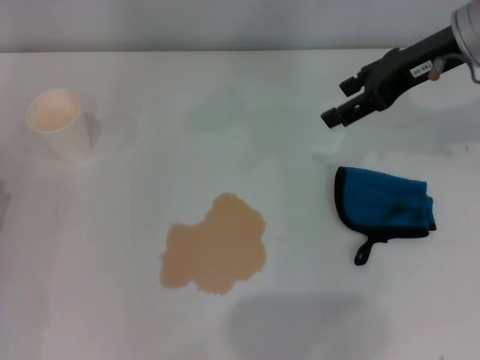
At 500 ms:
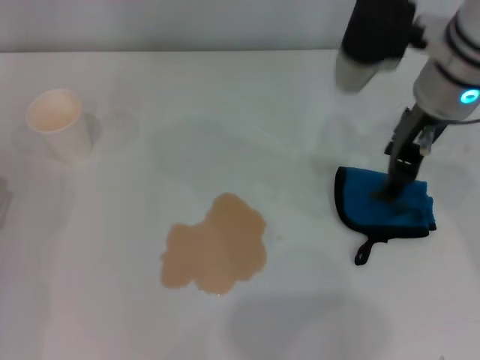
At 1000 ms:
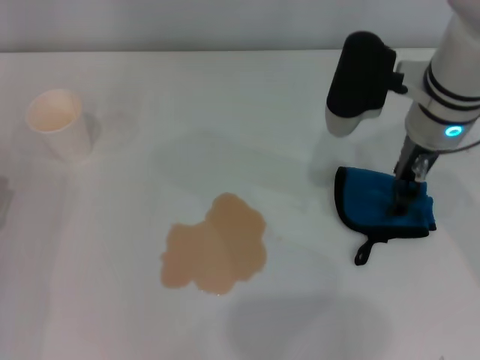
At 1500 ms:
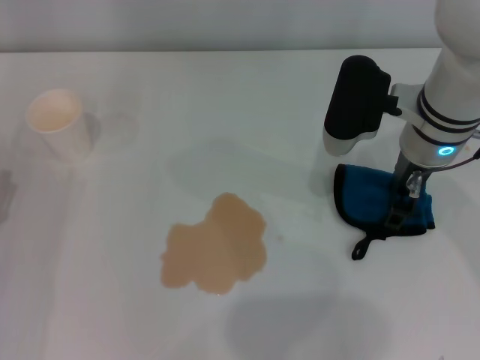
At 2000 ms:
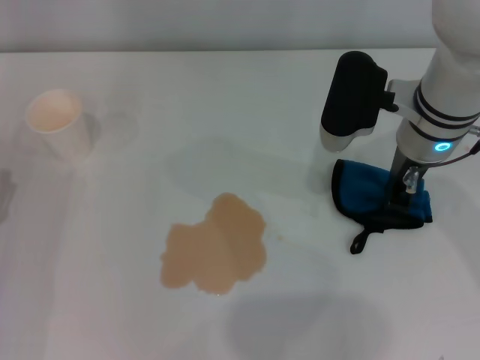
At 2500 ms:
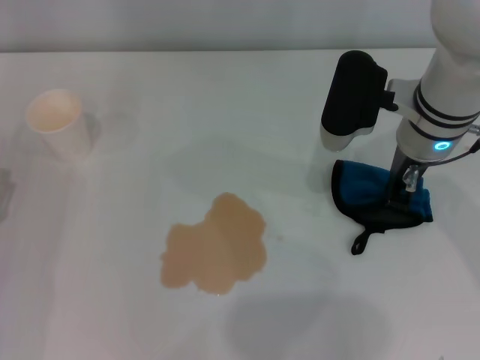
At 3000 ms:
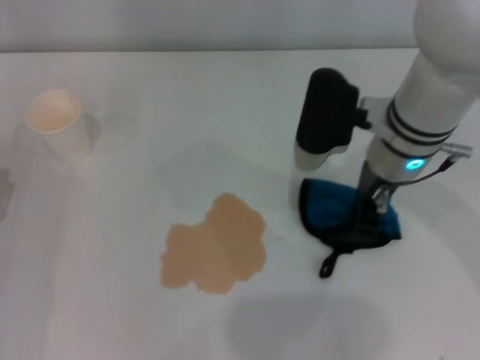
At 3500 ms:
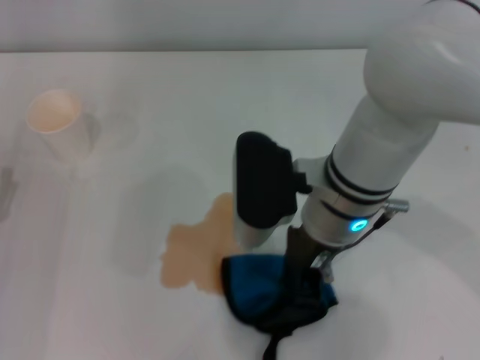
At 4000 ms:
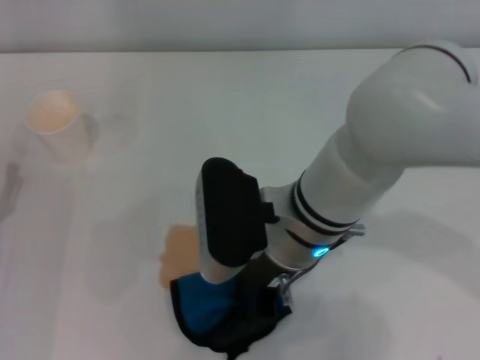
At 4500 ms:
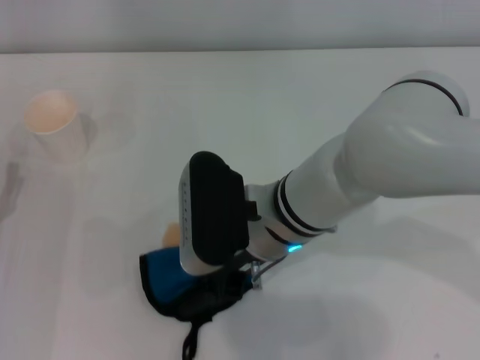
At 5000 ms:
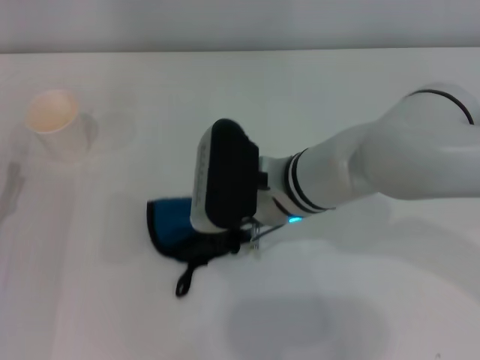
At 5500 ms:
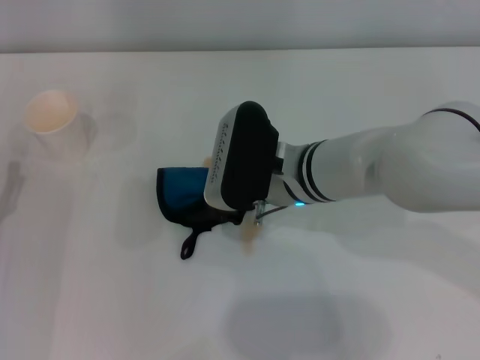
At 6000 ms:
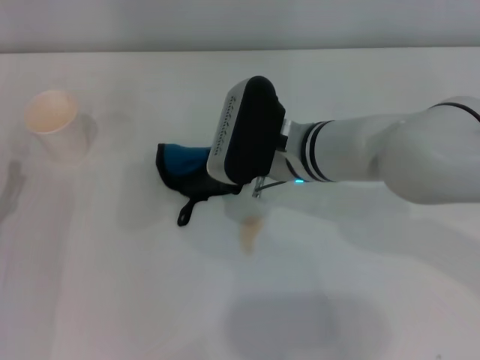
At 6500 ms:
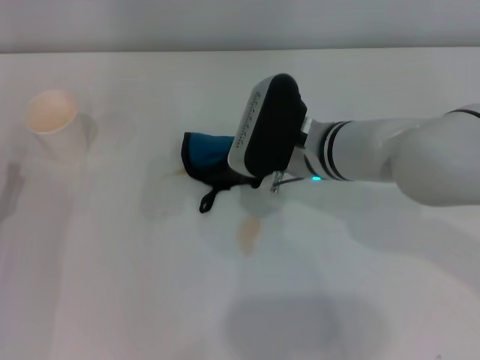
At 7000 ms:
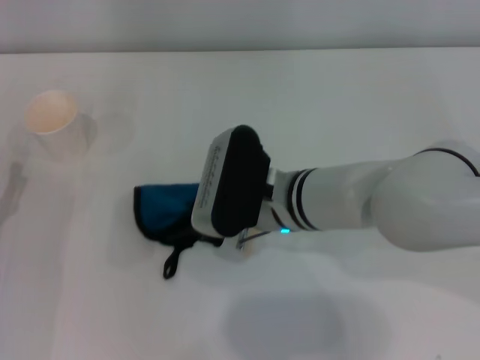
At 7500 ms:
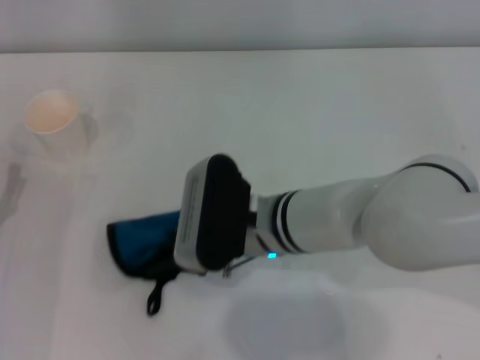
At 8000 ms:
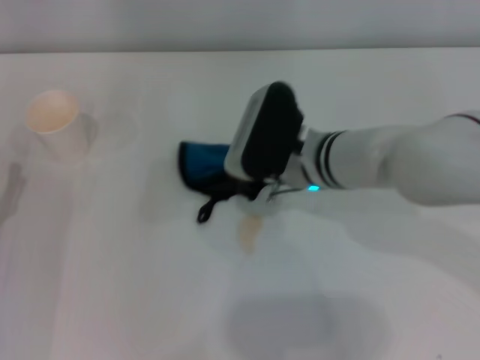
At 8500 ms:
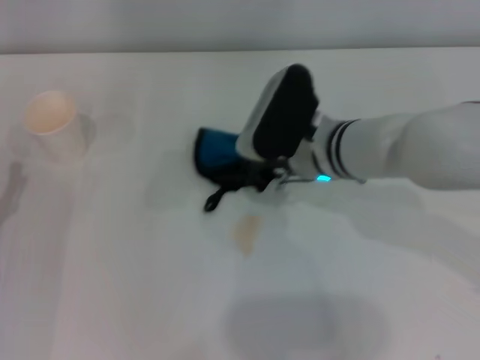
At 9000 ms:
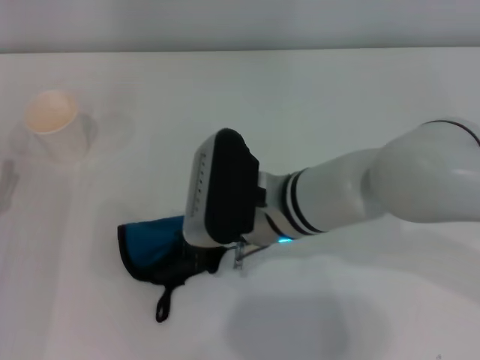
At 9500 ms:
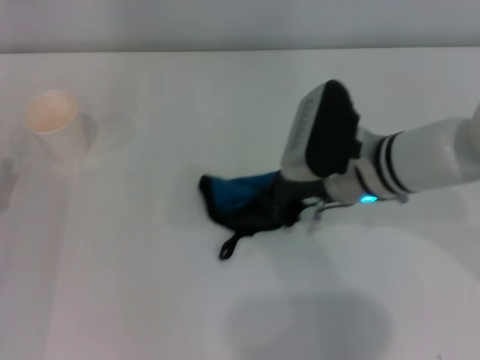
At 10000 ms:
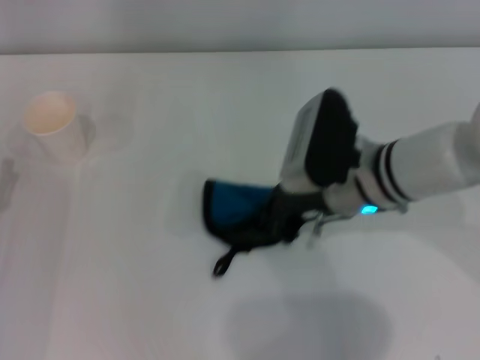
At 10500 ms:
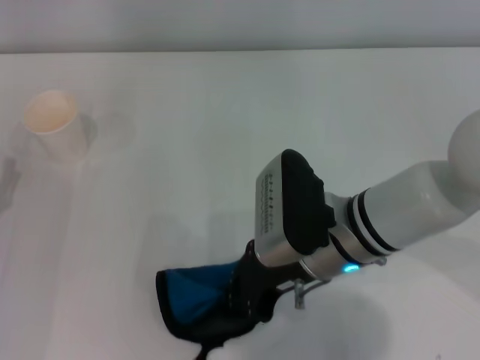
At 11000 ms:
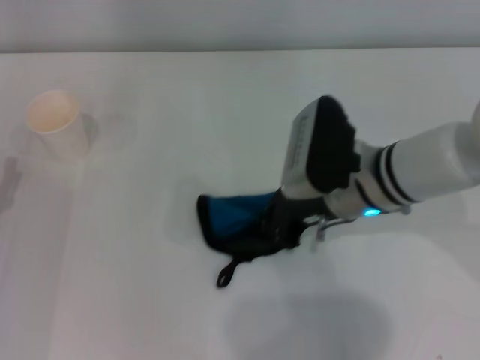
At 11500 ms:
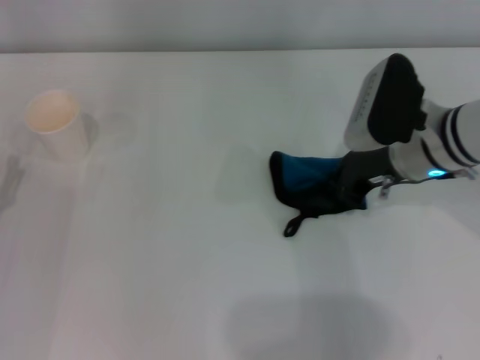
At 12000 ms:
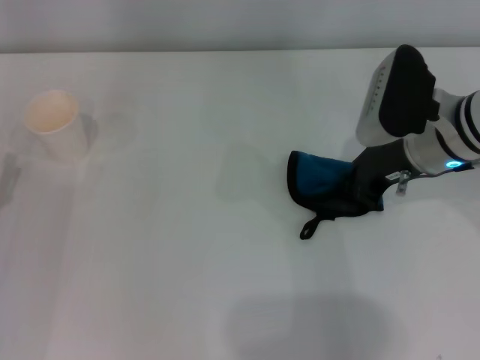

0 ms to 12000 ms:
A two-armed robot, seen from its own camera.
Step, 0 ms to 2500 ms: Grasp the rag with the right gripper.
Step, 3000 ms to 11500 ms: Wipe the stains off the table with the right gripper.
0 ms to 2000 ms: The right gripper is displaced downward and to the left by about 10 cm, and closes up.
2000 ms to 4000 ms: The right gripper travels to the left and backward by approximately 15 cm, and closes its fingers.
4000 ms to 6000 ms: The right gripper heads forward, covering about 5 cm.
8000 ms to 10000 ms: The right gripper changes place by some 5 cm.
10000 ms to 12000 ms: The right gripper goes about 10 cm to the right.

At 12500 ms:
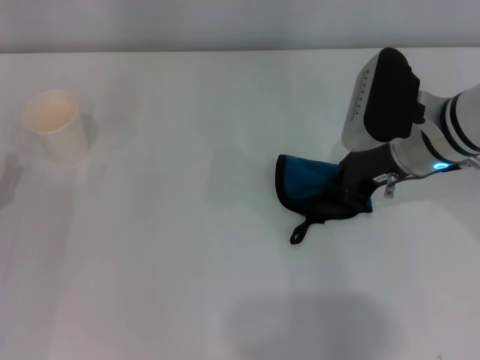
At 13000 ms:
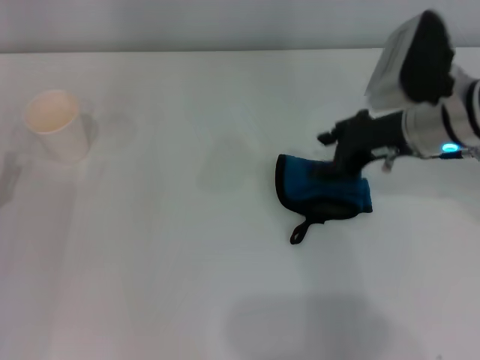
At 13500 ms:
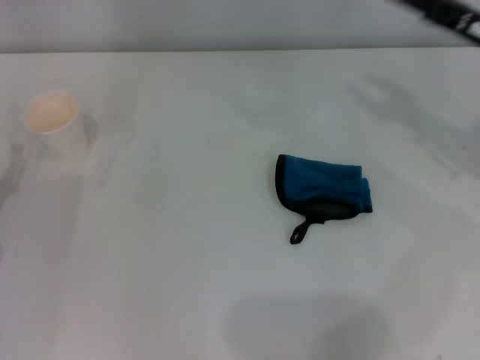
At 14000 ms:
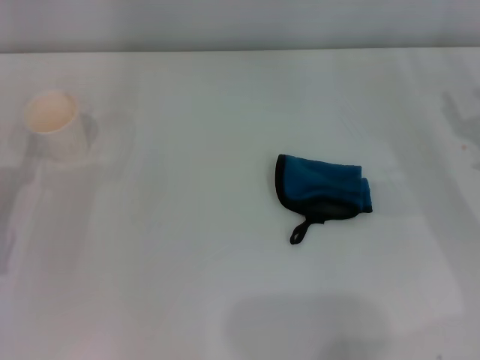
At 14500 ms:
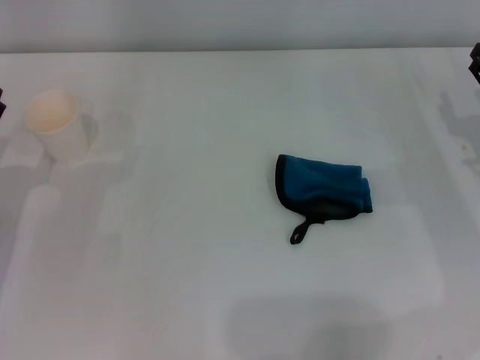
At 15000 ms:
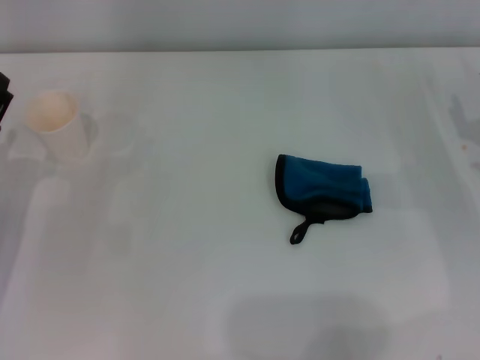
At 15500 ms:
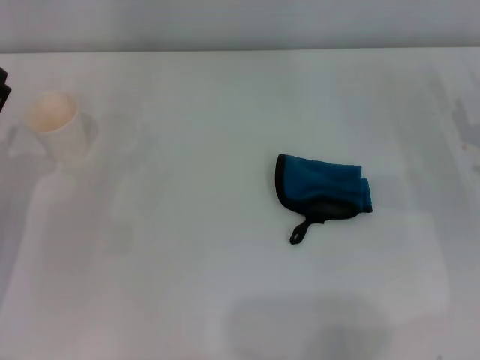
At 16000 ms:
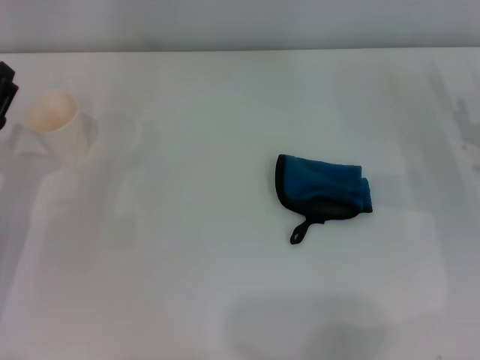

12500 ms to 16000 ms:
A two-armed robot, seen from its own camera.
12500 ms to 14500 ms: The right gripper travels to the right and downward by some 15 cm, and opens its fingers.
